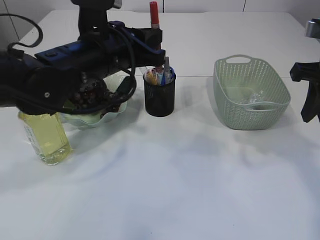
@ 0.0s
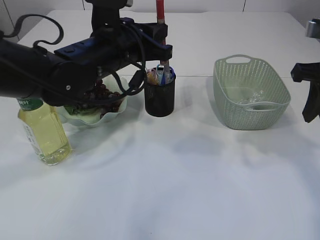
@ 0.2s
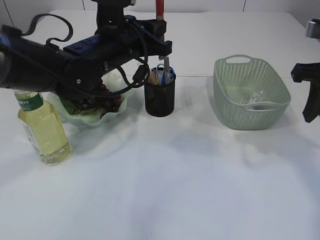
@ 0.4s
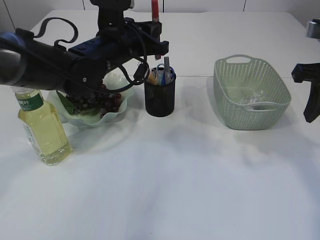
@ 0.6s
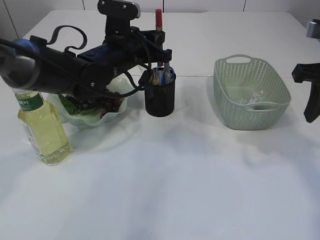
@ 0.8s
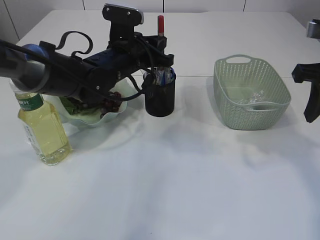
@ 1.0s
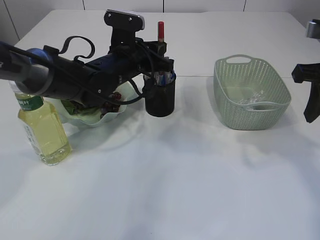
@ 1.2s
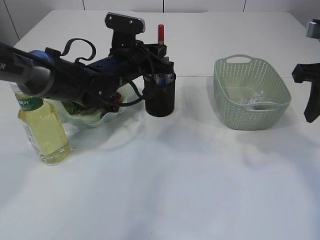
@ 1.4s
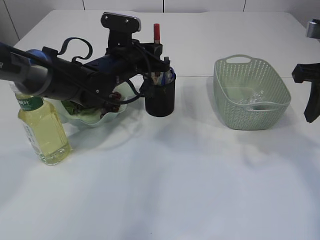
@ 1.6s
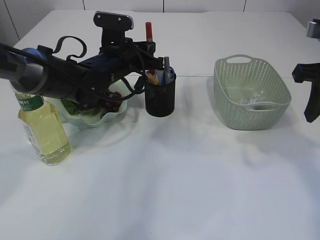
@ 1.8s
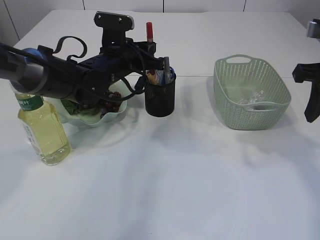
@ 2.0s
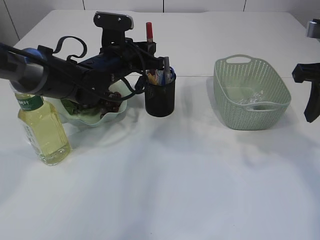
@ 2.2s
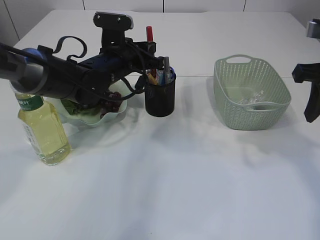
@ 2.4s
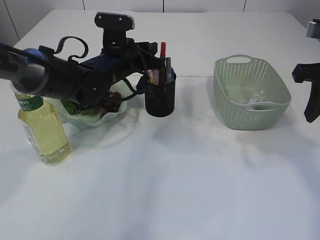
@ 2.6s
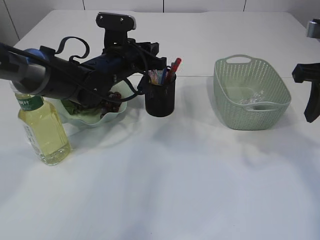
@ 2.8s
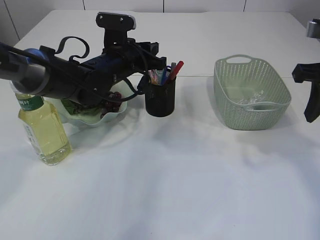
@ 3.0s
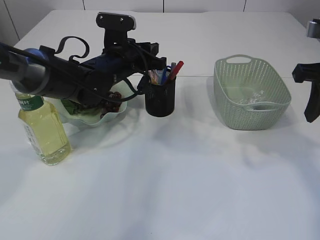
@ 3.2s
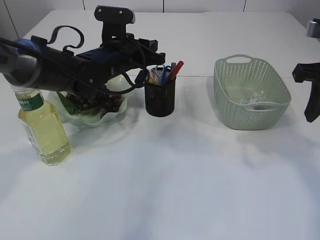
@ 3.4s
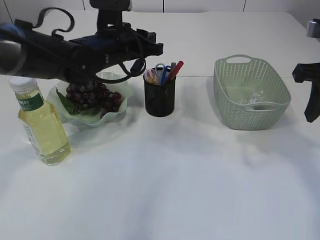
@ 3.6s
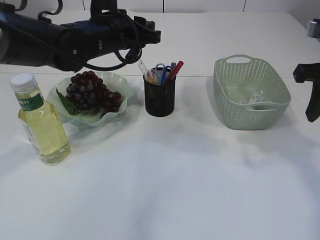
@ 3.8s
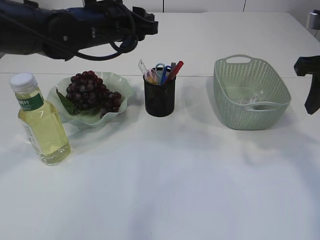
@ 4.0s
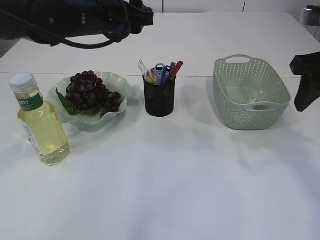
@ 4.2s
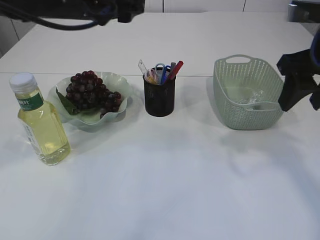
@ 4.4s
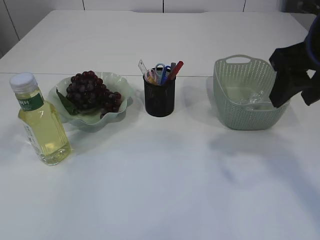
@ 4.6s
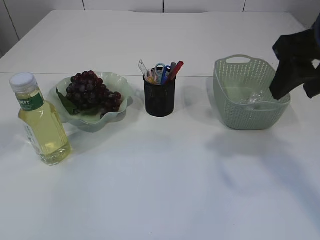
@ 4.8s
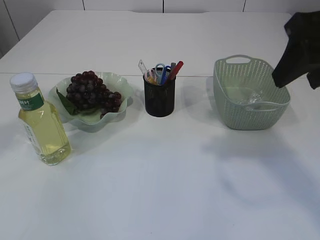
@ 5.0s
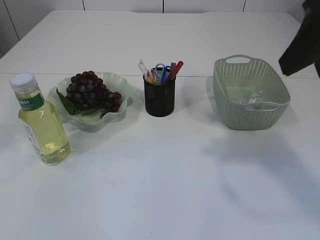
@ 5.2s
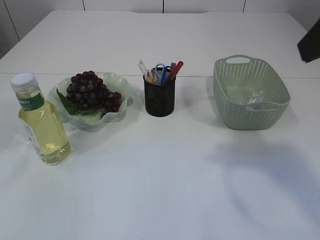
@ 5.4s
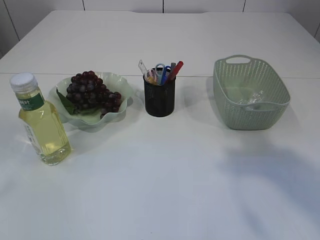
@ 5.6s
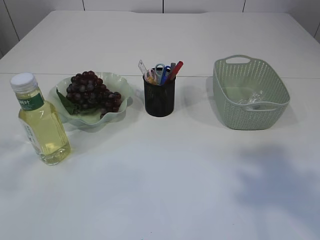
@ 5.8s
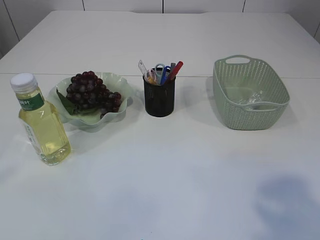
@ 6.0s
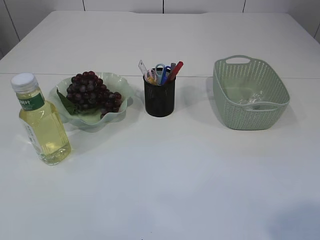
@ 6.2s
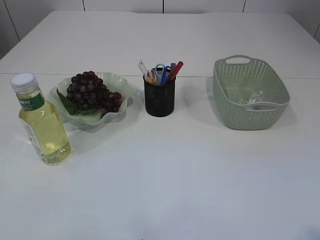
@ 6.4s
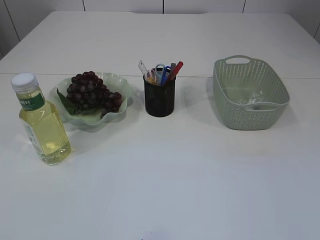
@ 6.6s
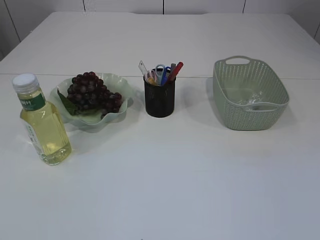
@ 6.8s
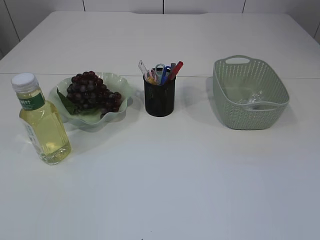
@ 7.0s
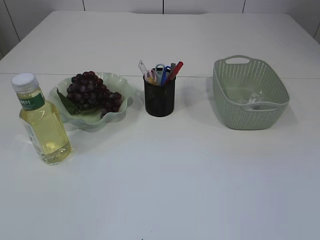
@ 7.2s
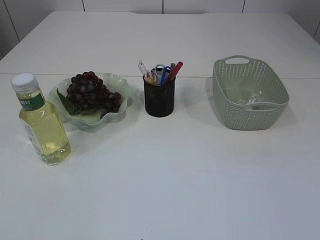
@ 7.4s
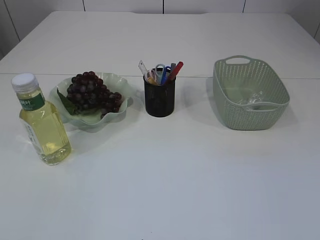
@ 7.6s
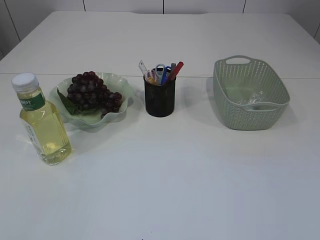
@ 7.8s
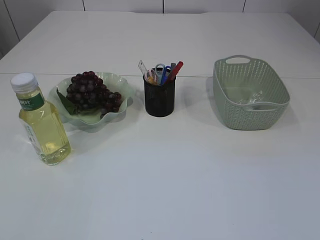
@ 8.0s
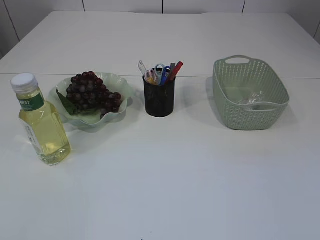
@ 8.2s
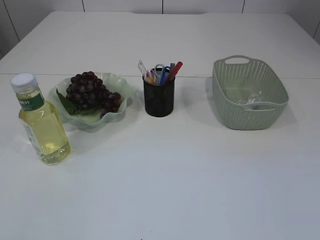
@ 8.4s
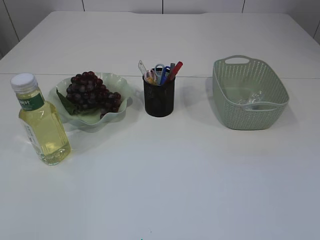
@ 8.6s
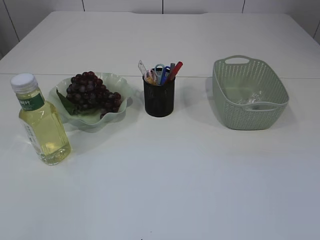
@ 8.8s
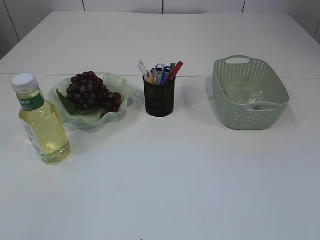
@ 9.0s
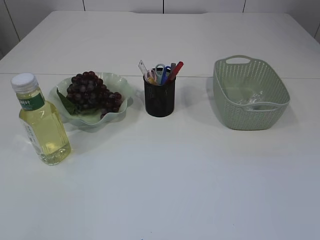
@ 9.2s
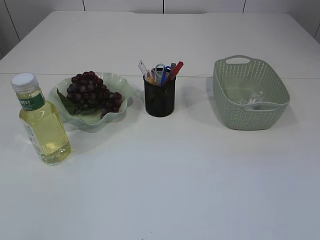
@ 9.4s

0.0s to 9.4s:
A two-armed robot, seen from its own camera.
Step, 0.0s to 3.4s: place the red glue into the pen holder.
0.0s to 1.6s: The left gripper heads forward and downward, covering roughly 10 cm.
1.6s to 3.2s: Neither gripper changes place.
3.2s to 4.8s: The right gripper shifts approximately 10 cm to the left and upward, and opens its fingers, while the left gripper moves upward and backward, roughly 25 cm, and opens up.
4.8s to 6.2s: The right gripper shifts about 25 cm backward; the left gripper is displaced backward and to the left by some 30 cm.

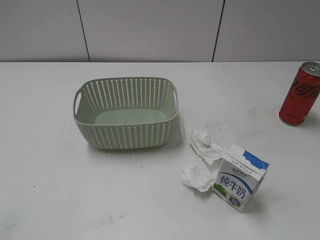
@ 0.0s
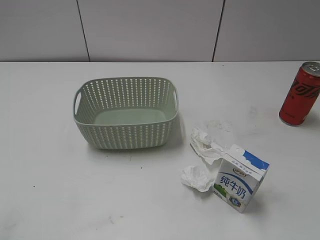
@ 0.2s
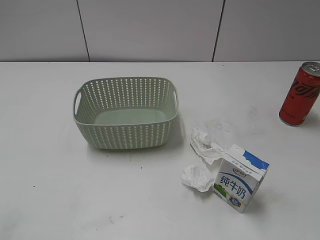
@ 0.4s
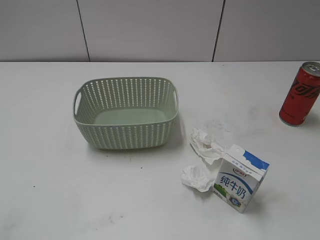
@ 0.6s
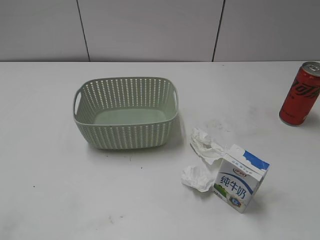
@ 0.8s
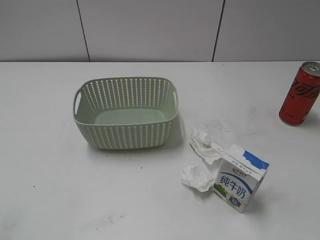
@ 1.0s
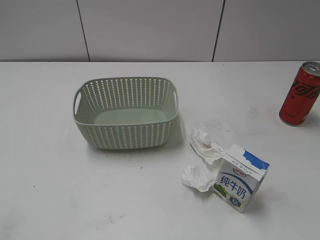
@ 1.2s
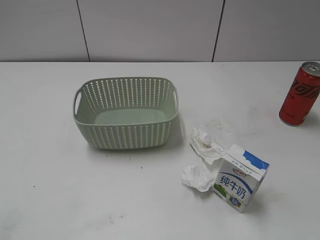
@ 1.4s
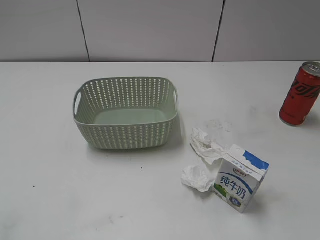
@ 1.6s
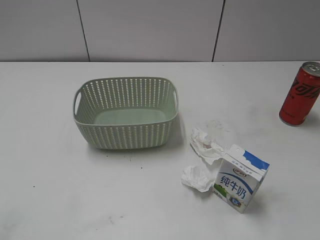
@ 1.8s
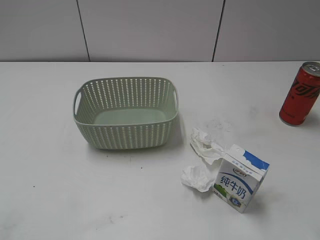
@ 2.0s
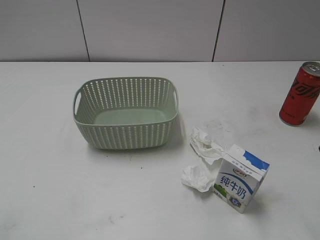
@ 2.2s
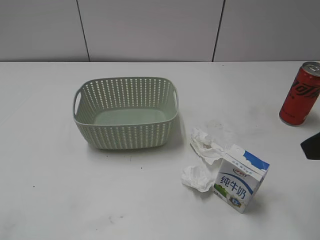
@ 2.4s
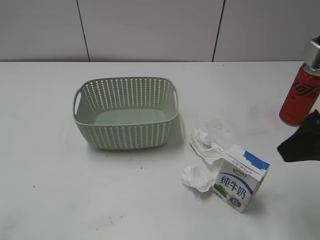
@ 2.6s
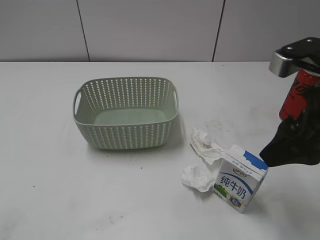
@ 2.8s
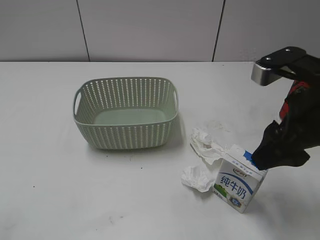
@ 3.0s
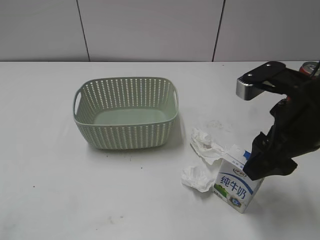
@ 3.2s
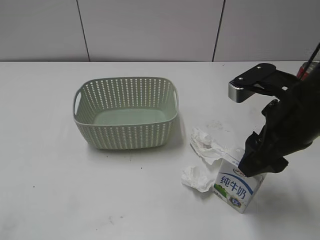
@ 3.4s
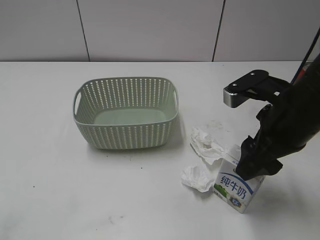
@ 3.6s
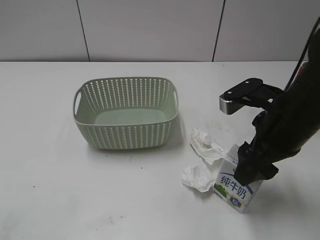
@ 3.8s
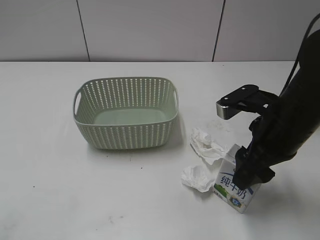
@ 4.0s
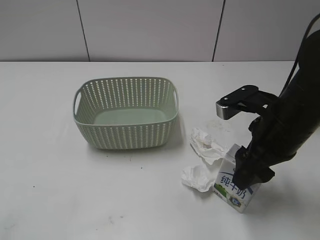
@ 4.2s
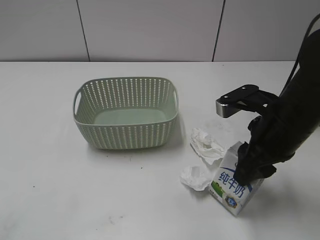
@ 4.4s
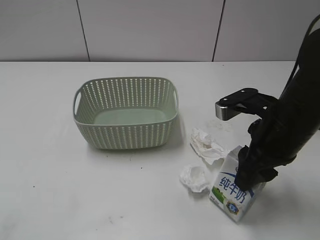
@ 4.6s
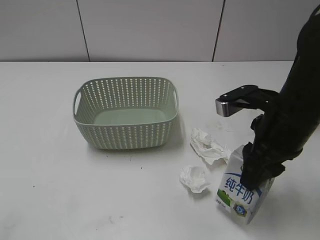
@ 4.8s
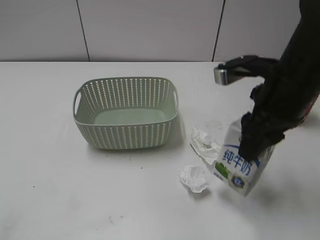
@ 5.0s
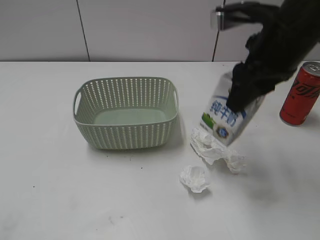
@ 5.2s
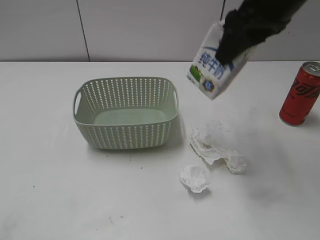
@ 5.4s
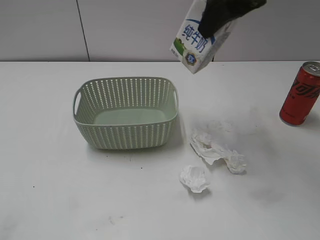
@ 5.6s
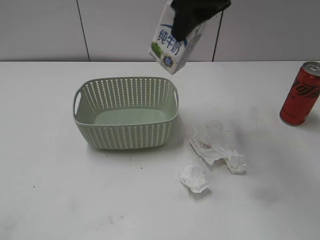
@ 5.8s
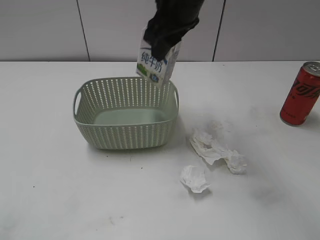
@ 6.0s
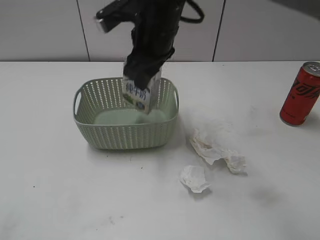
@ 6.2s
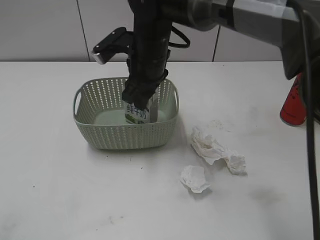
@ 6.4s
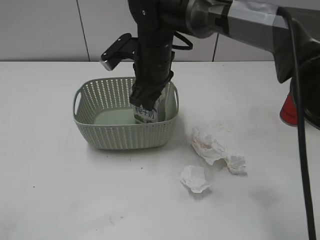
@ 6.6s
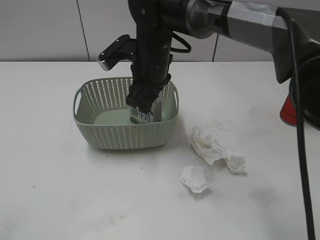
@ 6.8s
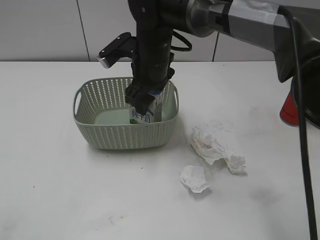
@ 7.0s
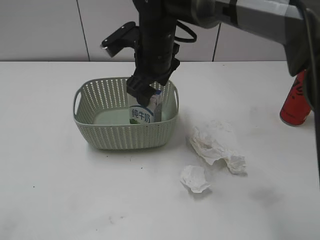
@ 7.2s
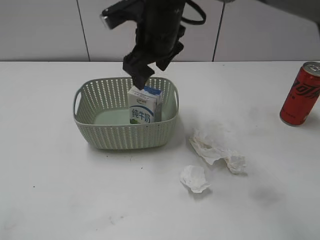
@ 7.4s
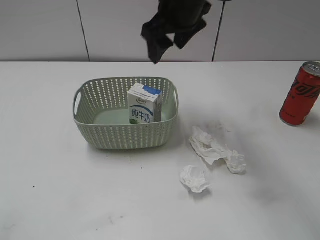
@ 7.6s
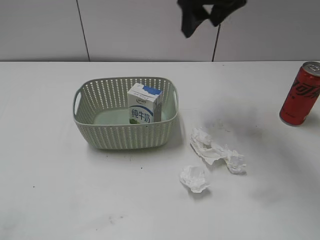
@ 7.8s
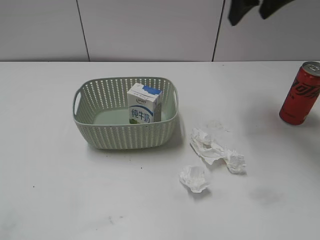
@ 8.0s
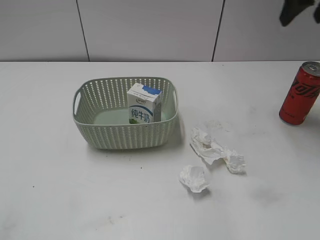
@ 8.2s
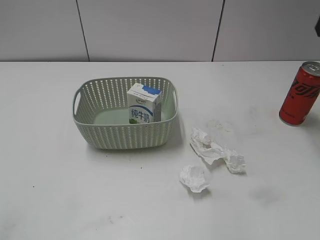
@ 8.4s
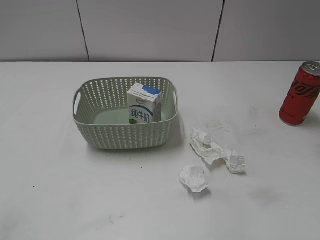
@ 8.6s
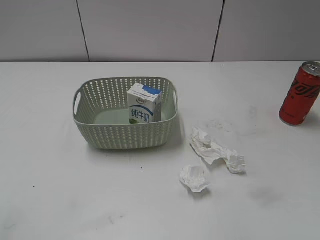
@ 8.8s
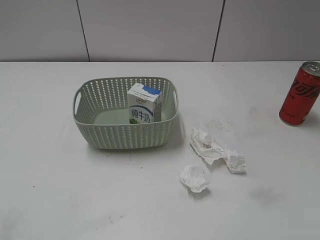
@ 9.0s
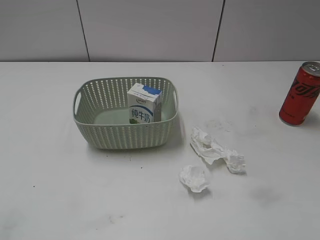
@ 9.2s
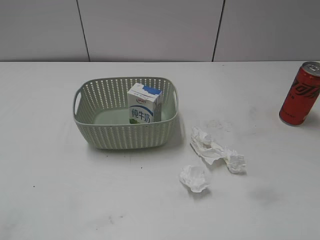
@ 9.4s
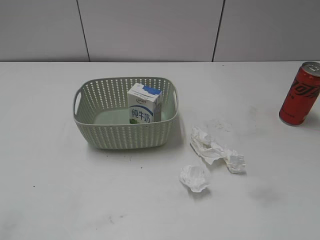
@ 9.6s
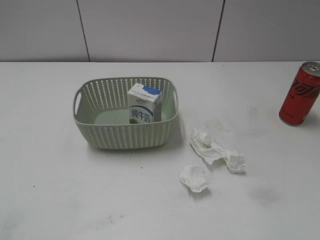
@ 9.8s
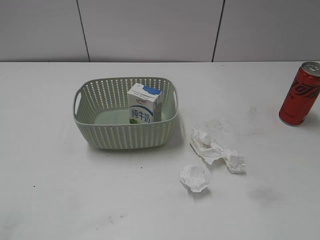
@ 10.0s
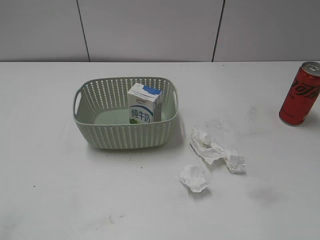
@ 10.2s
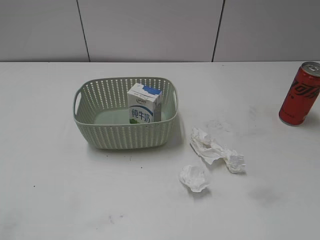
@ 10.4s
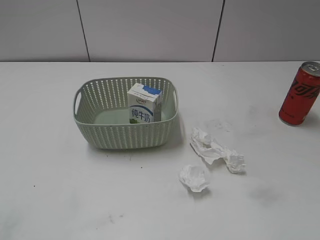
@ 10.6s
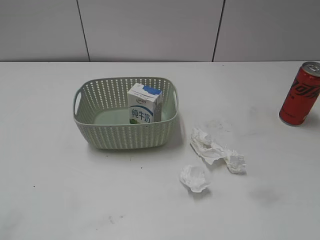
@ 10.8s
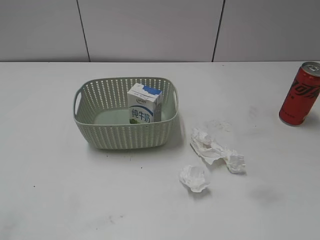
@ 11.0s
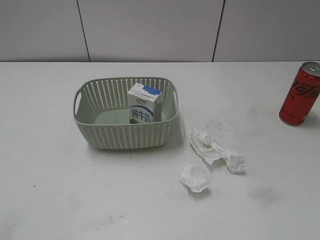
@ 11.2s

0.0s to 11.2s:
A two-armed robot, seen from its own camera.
Step, 2.2s to 4.4s: Grasp the milk with right gripper.
Step, 4.6s to 7.4s: Place the milk in the basket with right gripper.
1.6s to 3.2s: The right gripper travels forward and to the left by about 20 cm.
3.2s to 4.8s: The right gripper closes.
4.8s to 6.4s: The right gripper moves to the left and forward, about 25 cm.
6.4s to 8.0s: The right gripper heads to the right and upward, covering approximately 25 cm, and opens its fingers.
8.0s to 9.6s: The right gripper heads backward and to the right, covering about 35 cm.
